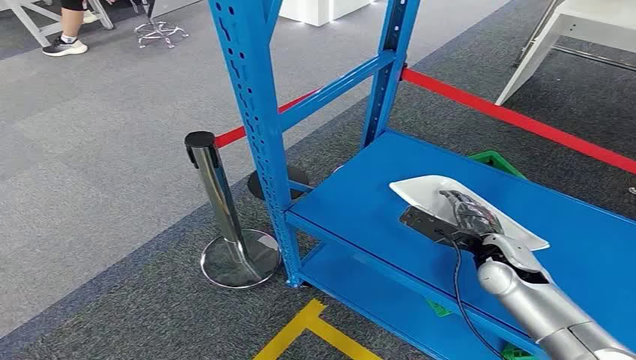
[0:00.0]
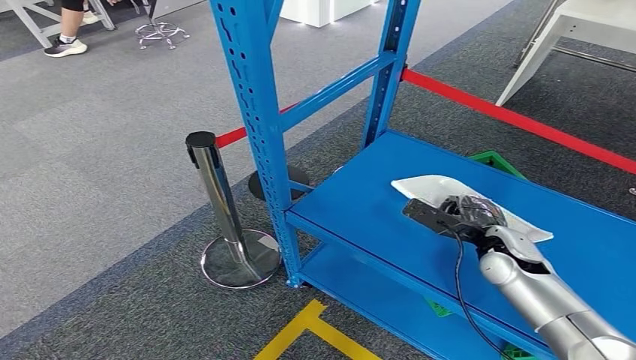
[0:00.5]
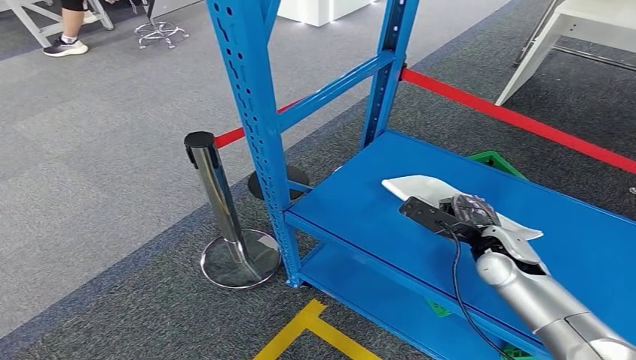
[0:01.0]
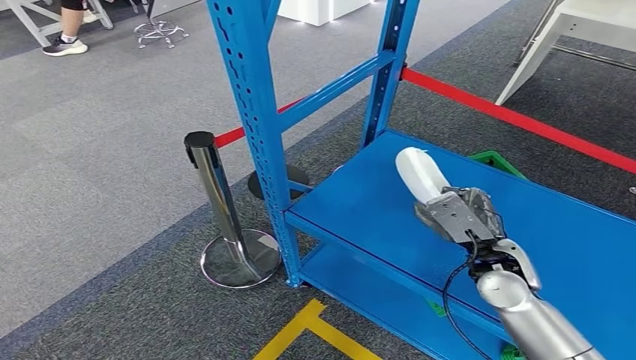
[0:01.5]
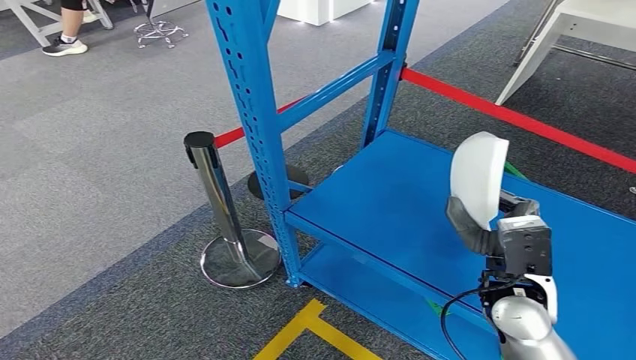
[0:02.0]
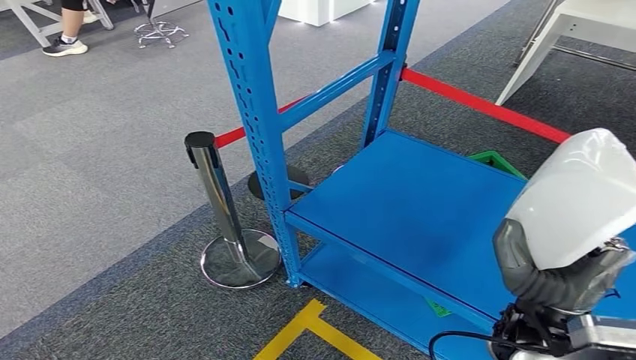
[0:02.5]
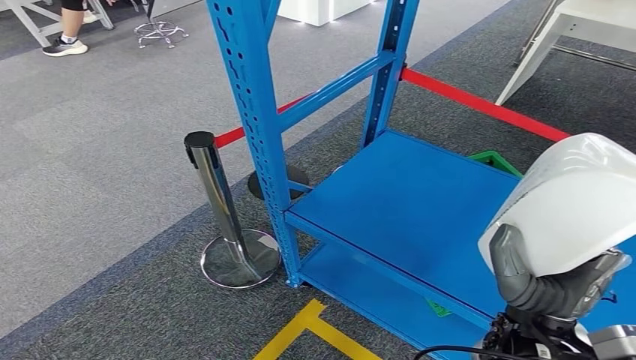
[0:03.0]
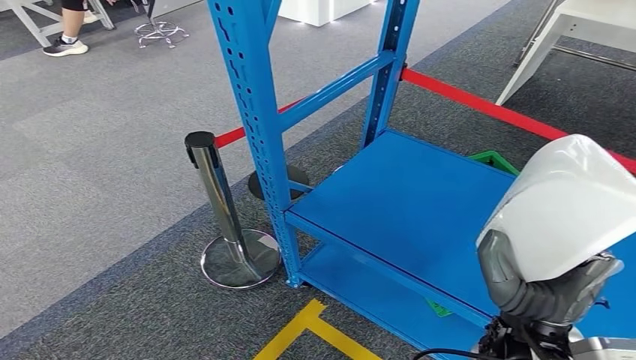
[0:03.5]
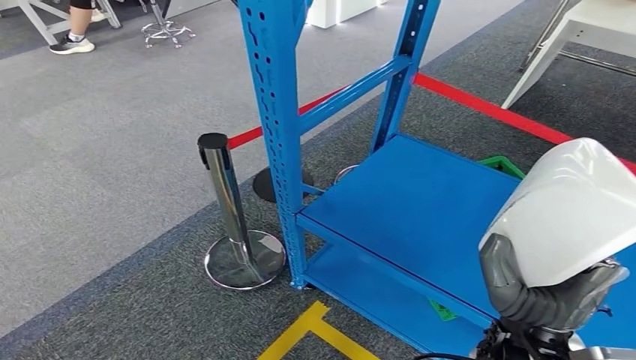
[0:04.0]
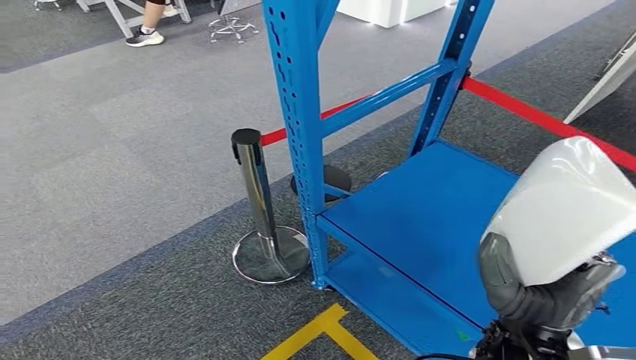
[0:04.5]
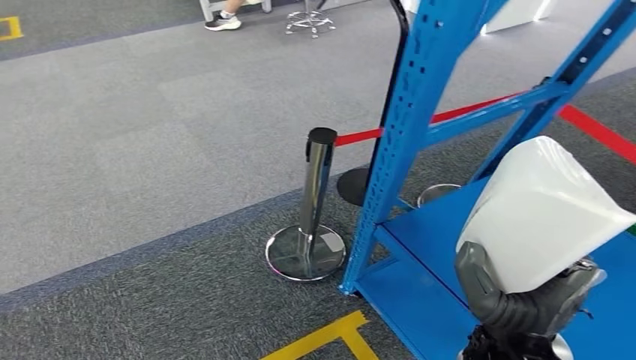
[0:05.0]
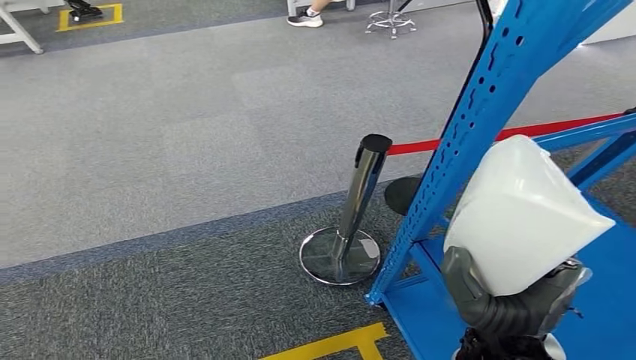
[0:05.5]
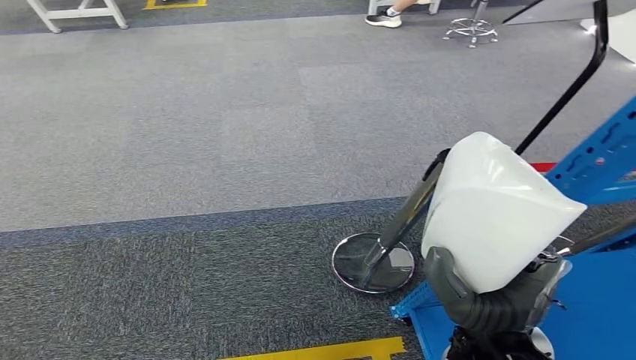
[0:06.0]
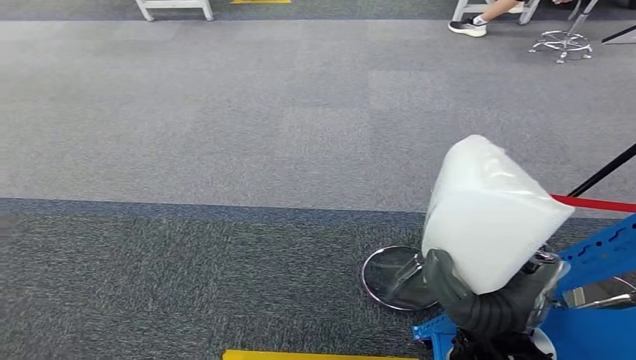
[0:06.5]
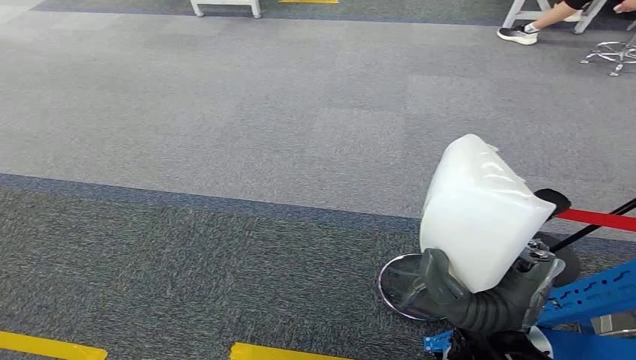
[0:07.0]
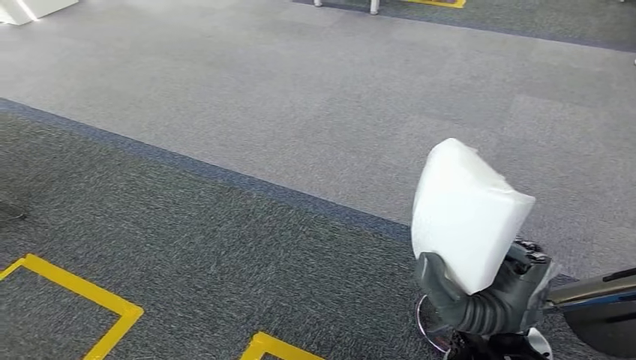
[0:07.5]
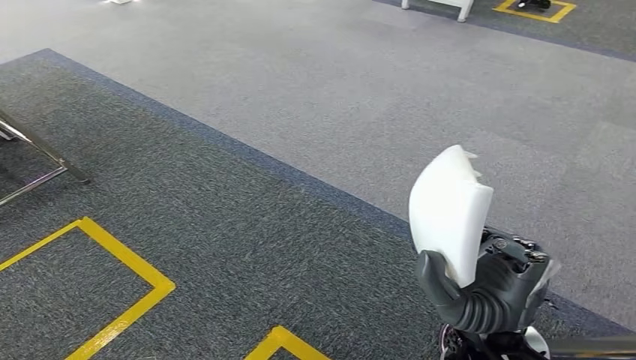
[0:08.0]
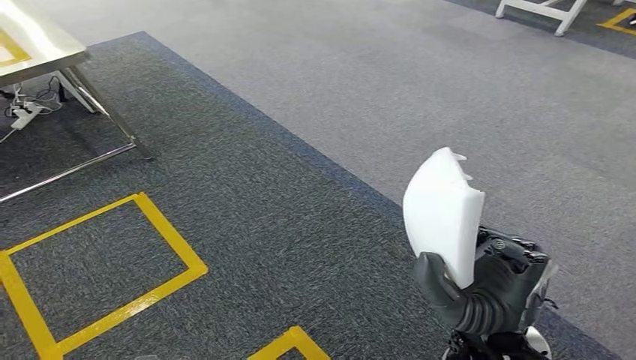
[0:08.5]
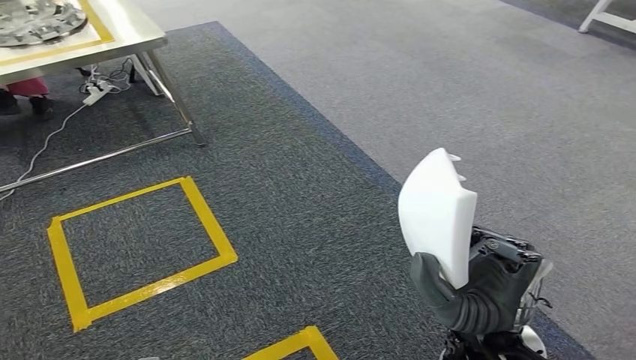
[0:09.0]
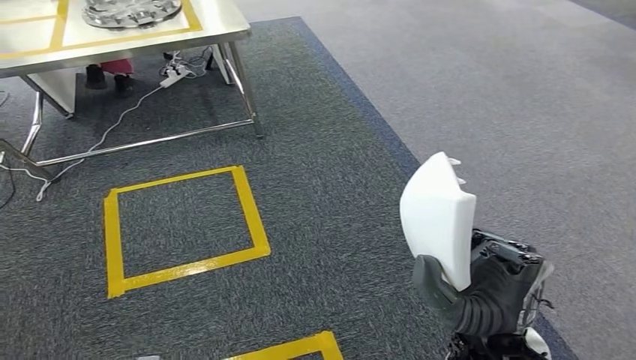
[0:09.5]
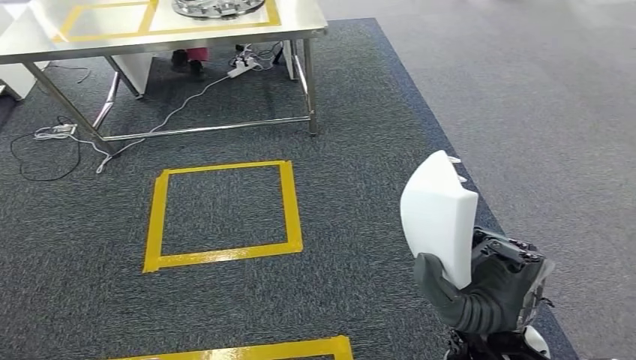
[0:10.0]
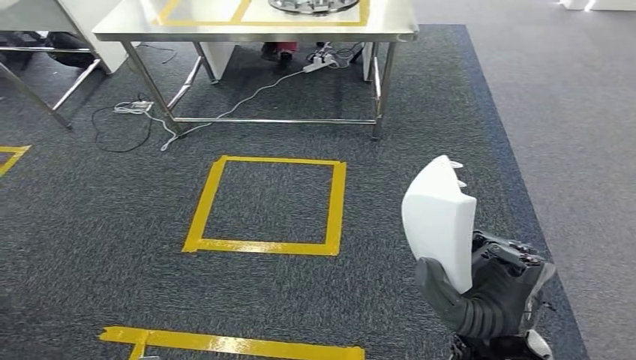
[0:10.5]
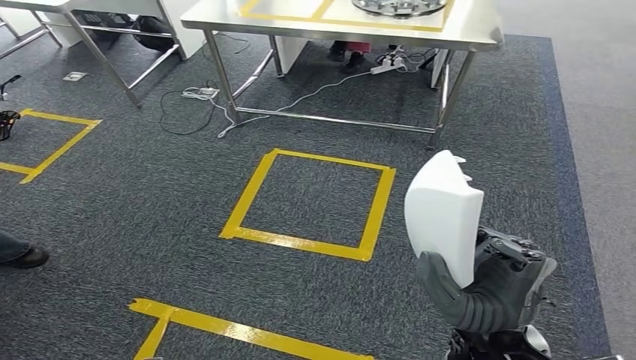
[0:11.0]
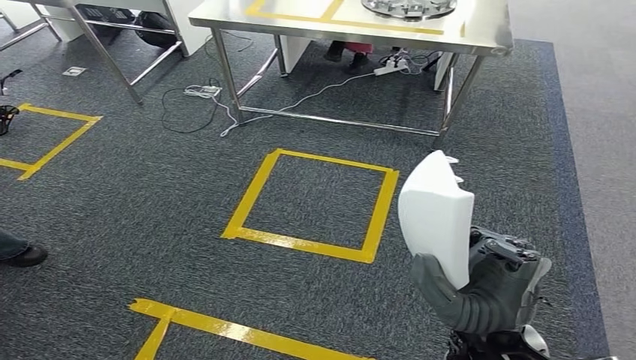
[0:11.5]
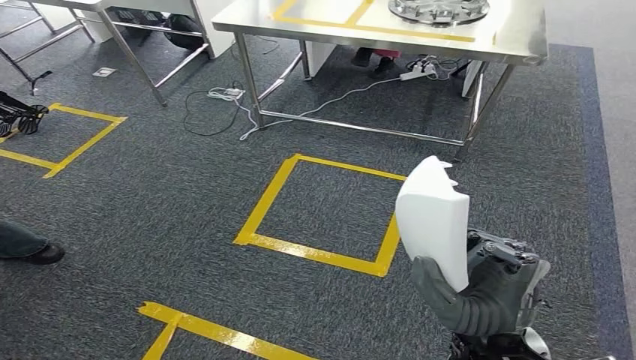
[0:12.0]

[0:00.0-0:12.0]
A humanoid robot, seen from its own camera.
Step, 0:00.0 to 0:02.5: Pick up the small parts from the shelf.

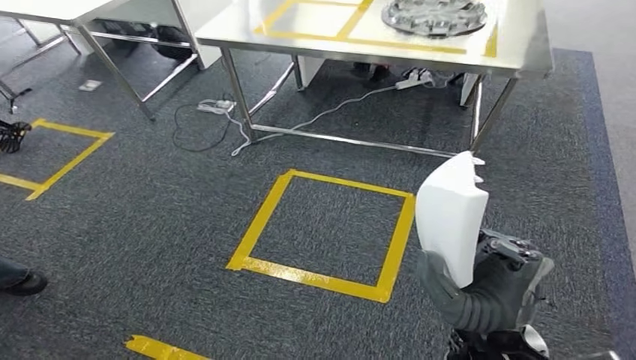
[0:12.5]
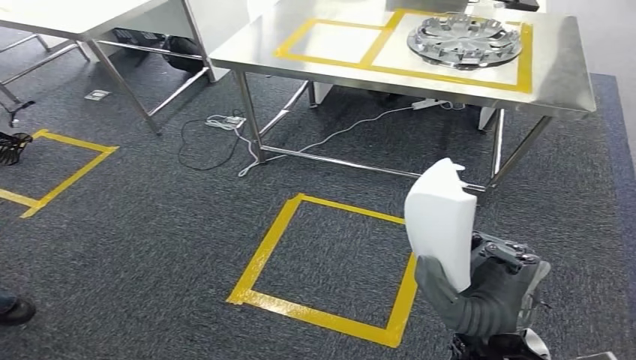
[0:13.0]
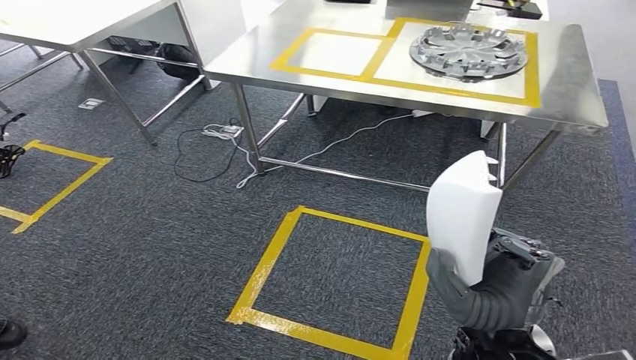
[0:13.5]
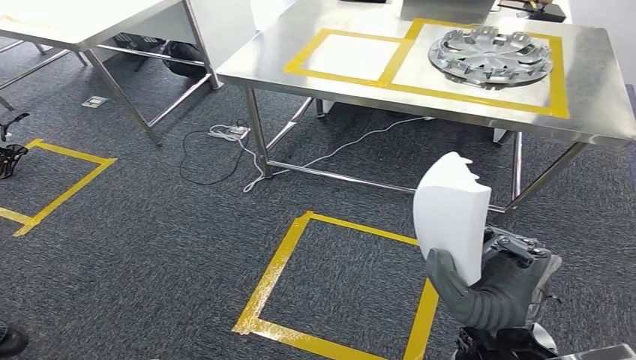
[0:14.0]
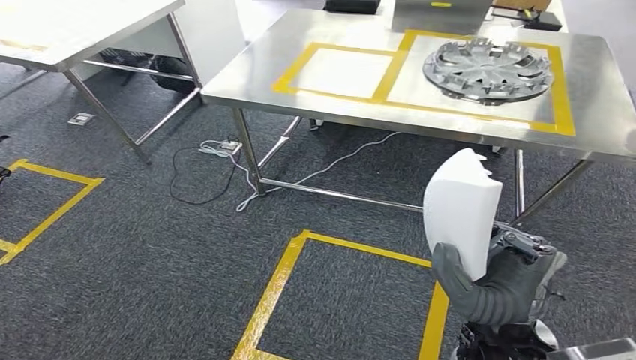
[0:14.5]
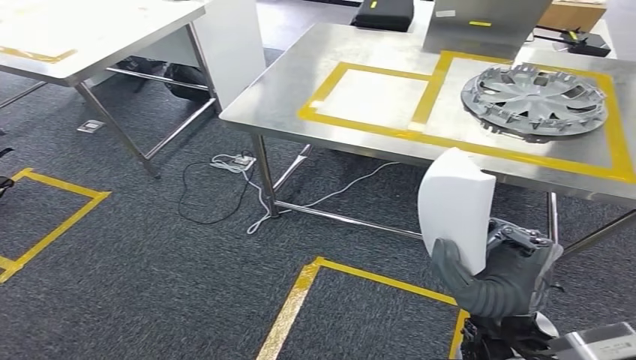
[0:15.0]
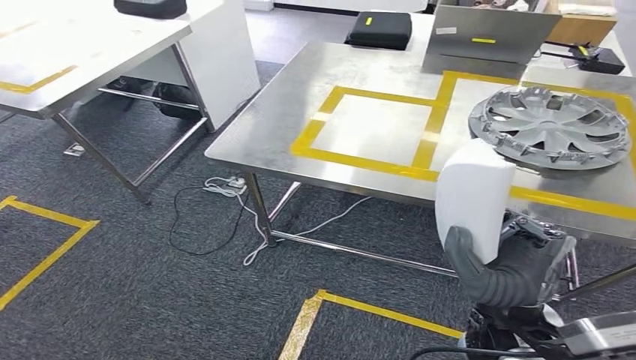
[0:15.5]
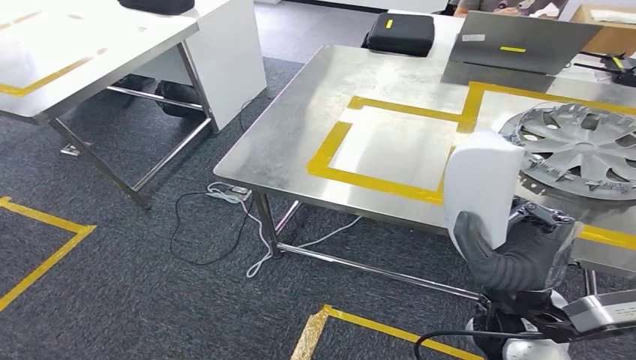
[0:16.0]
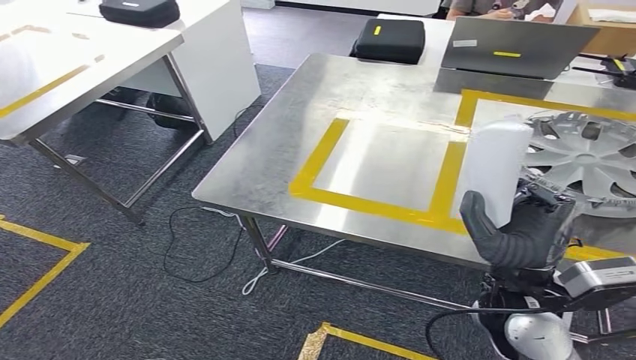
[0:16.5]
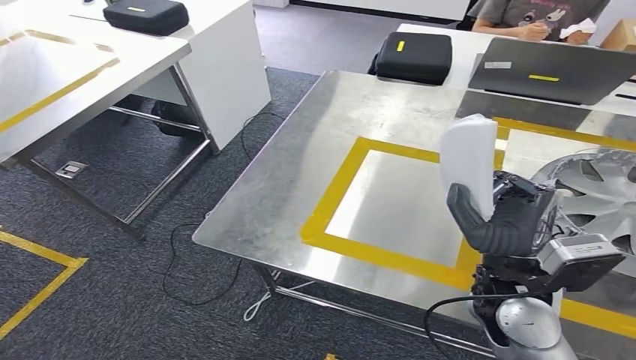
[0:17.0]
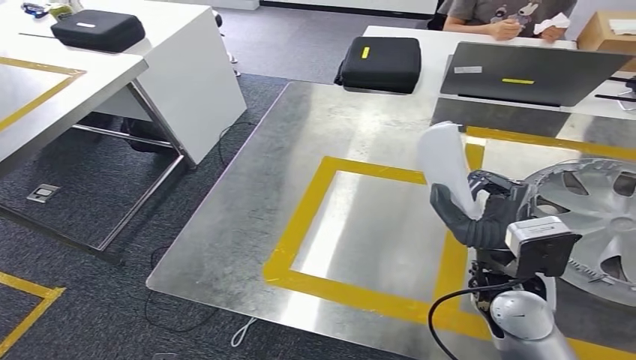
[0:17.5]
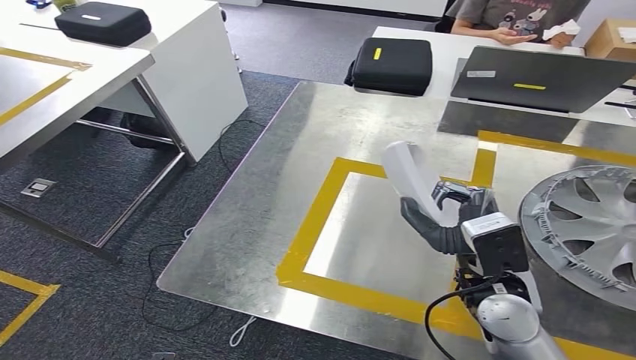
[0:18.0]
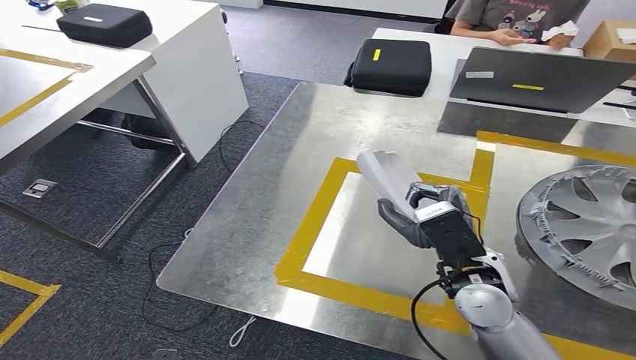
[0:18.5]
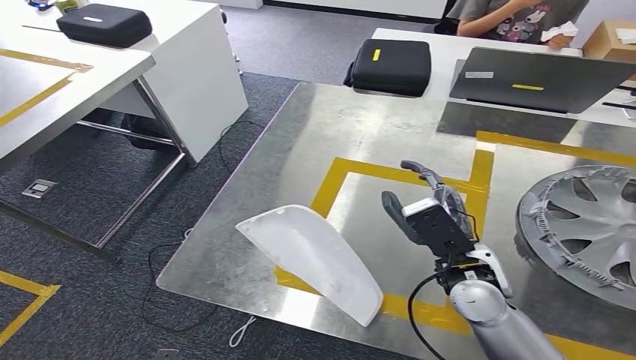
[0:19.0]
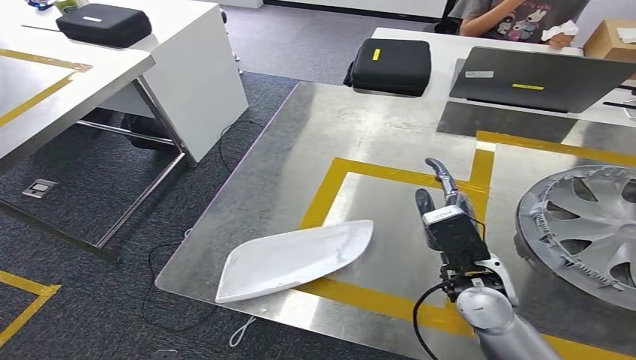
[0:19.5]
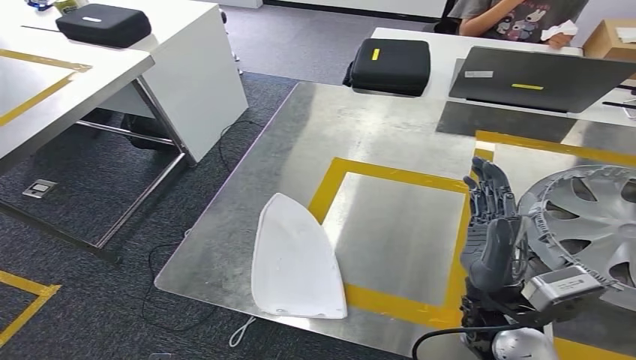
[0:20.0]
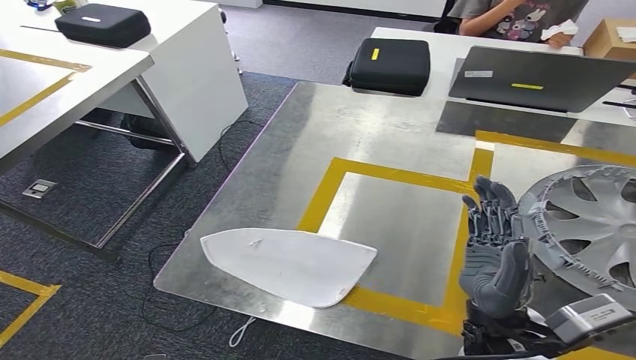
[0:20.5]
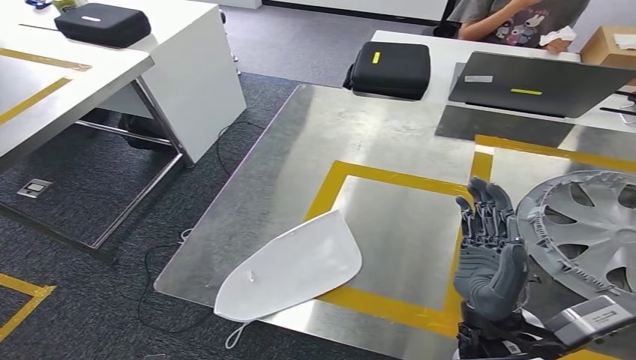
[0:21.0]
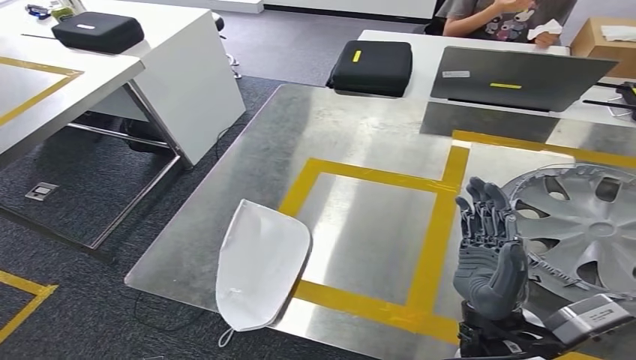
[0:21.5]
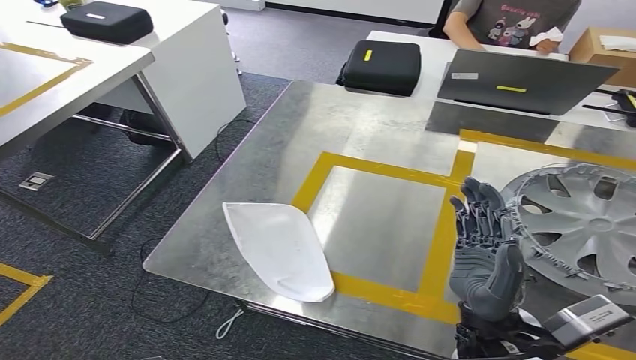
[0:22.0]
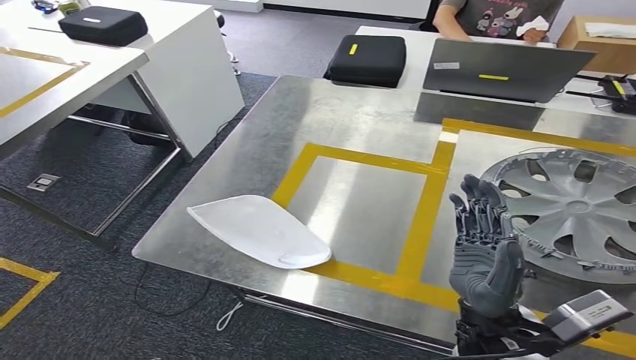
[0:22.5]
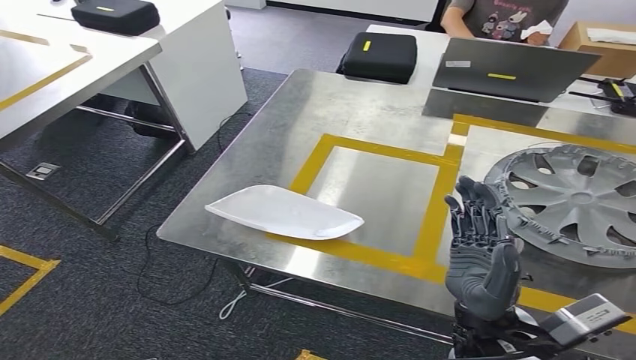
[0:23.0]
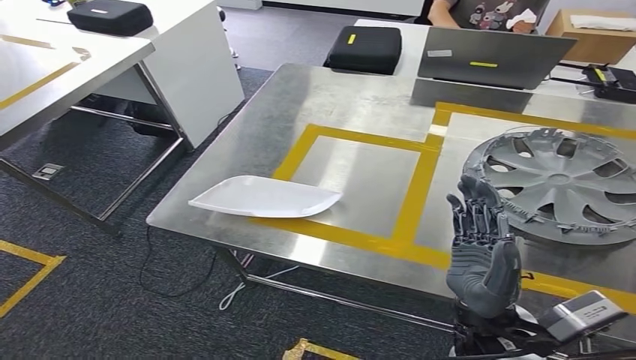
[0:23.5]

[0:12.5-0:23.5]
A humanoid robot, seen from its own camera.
Step, 0:12.5 to 0:16.5: Move the small parts to the workbench.
Step, 0:17.0 to 0:19.5: Insert the small parts into the corresponding slots on the workbench.
0:18.0 to 0:20.0: The hands move only a little.
